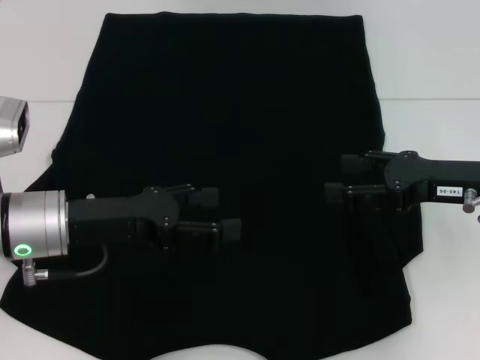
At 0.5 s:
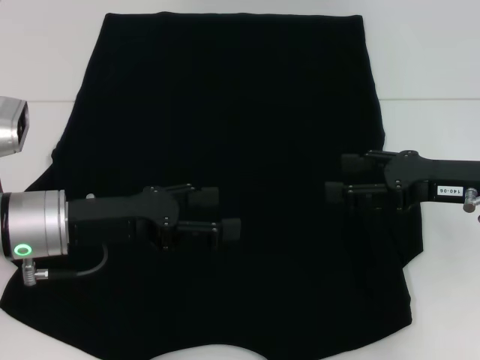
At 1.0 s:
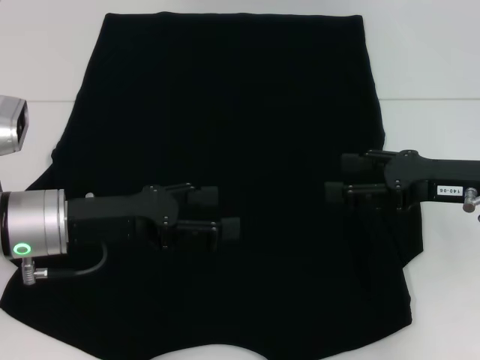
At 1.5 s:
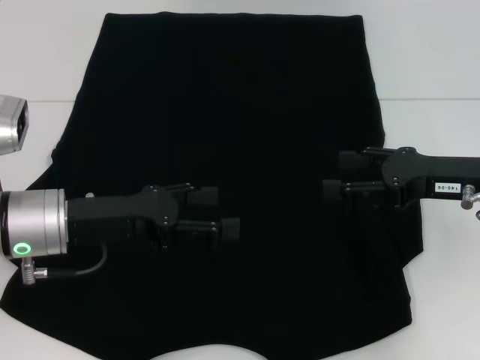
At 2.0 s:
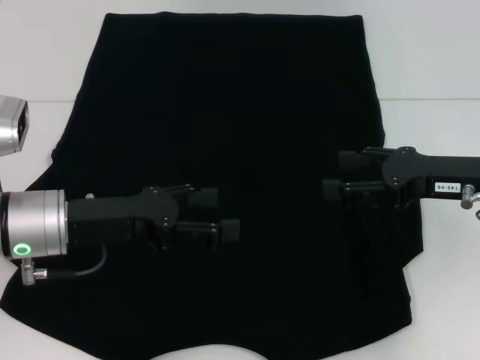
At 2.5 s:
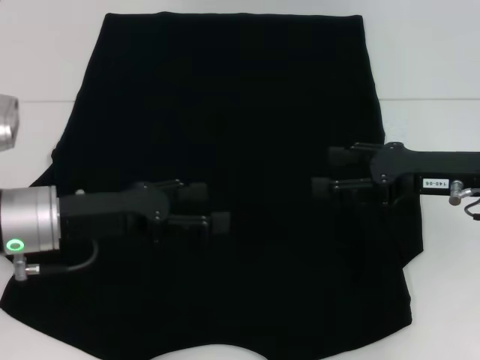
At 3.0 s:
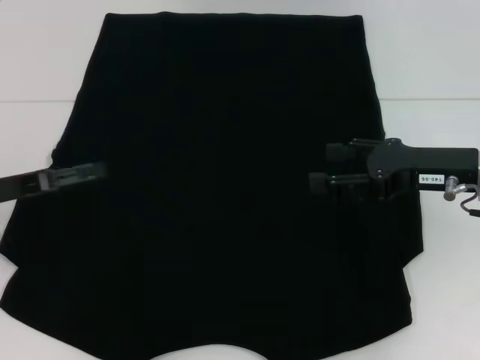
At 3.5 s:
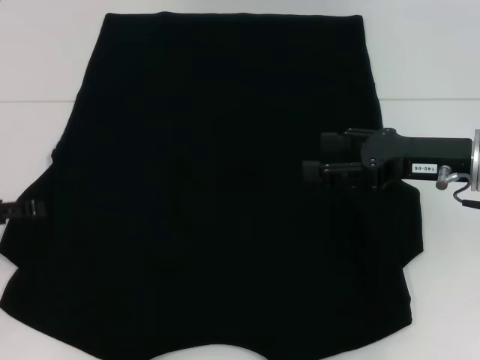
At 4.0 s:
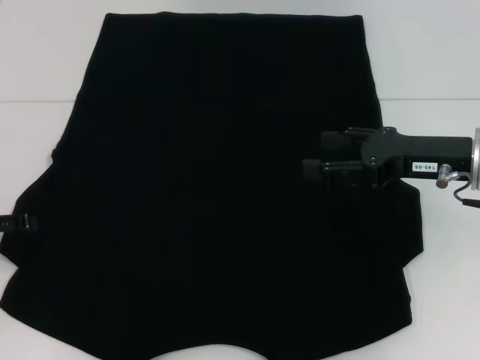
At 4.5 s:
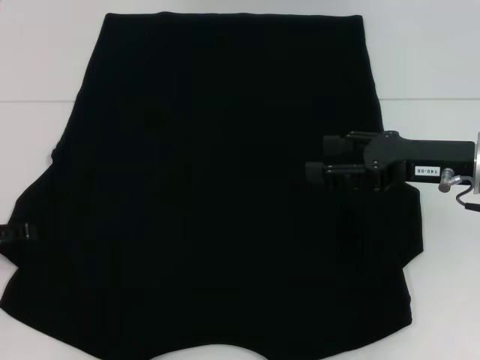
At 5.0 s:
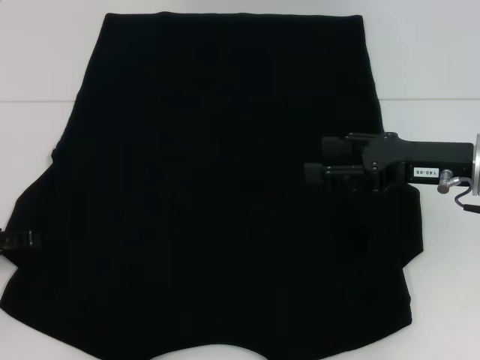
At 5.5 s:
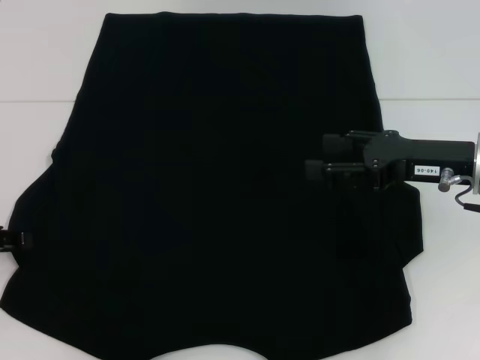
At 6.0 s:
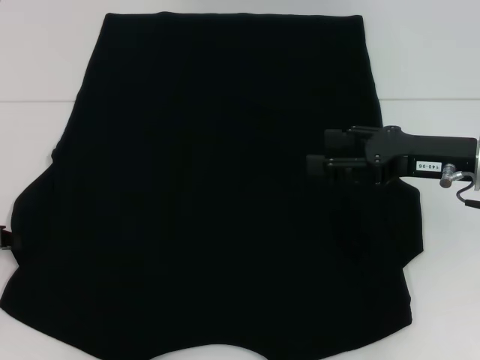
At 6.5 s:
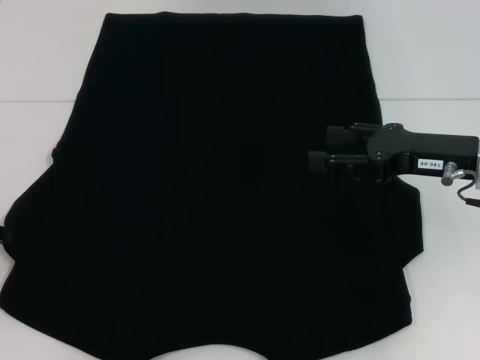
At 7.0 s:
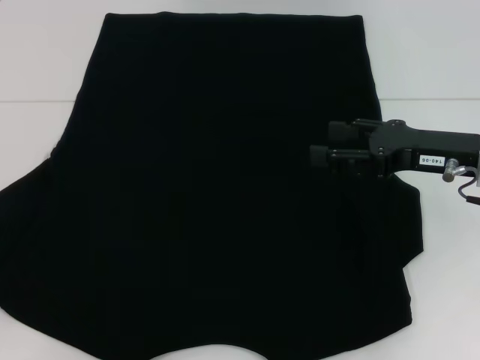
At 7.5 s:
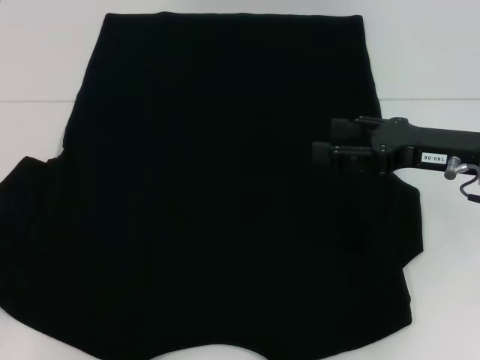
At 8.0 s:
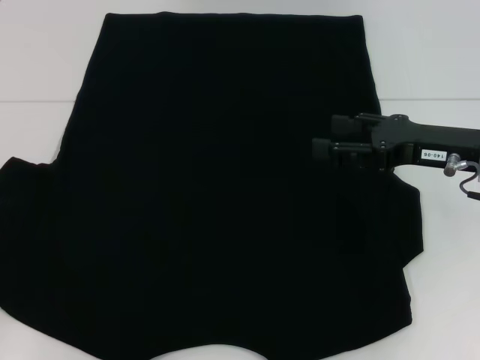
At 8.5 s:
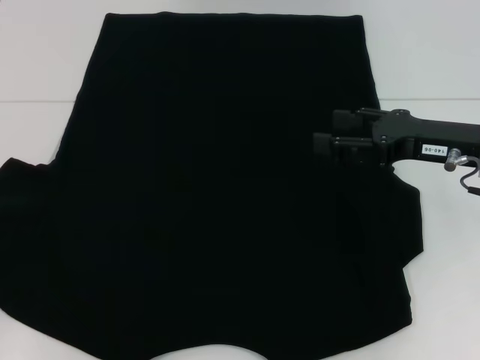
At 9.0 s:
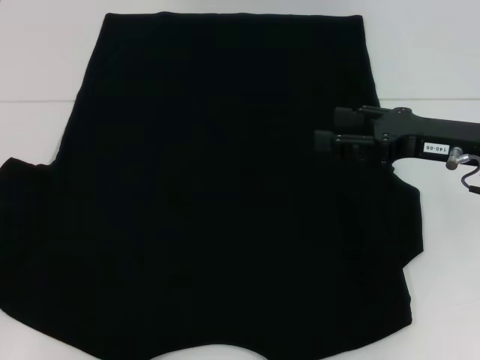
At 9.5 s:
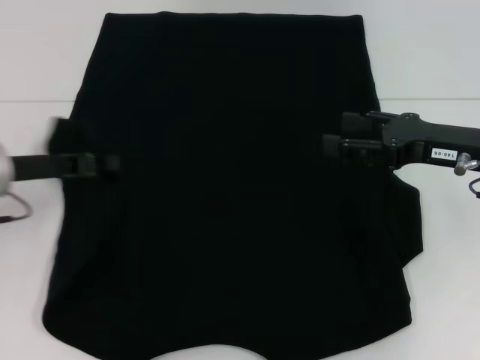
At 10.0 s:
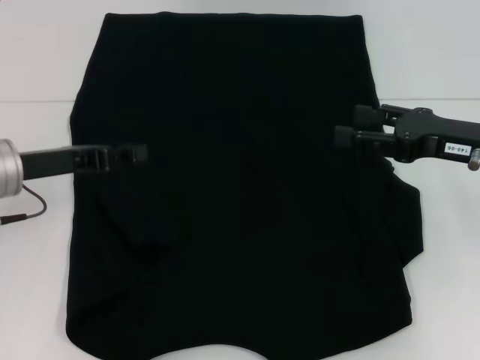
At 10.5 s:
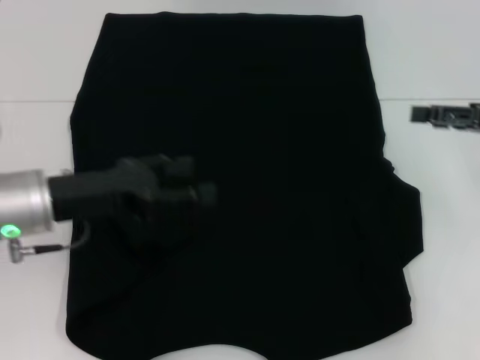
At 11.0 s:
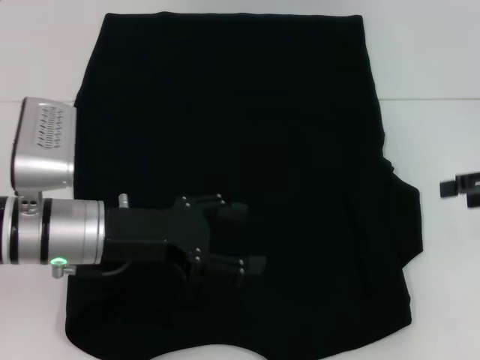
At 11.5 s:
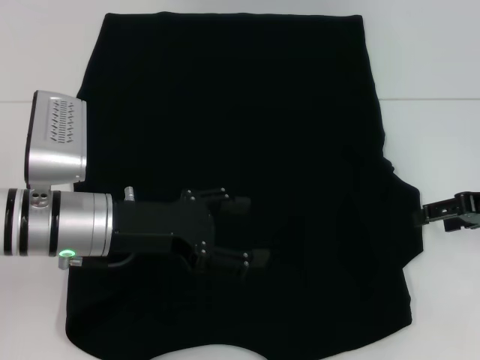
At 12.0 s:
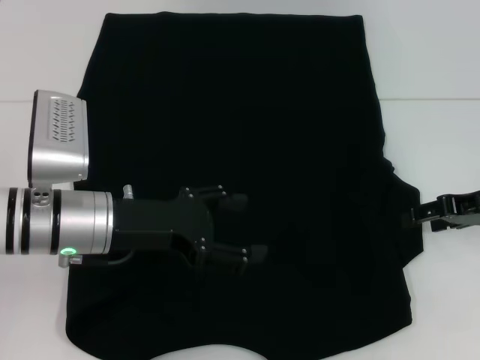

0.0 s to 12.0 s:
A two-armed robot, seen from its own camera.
Step, 0.0 to 10.0 s: Fold the clothes with your left hand.
0.0 to 2.0 s: Both grippers stay put.
2.0 to 4.0 s: The left gripper moves to the left, about 15 cm.
6.0 to 8.0 s: The left gripper shifts roughly 5 cm to the left.
8.0 to 10.0 s: The left gripper goes about 15 cm to the right and forward.
10.0 to 12.0 s: The left gripper travels to the right by roughly 10 cm, and opens up.

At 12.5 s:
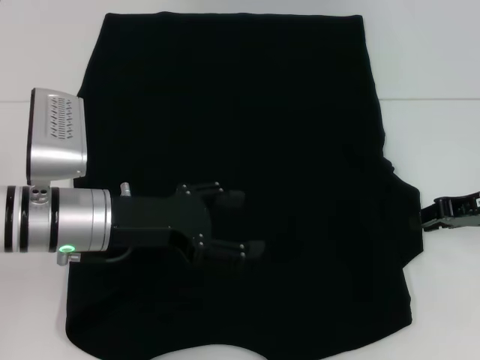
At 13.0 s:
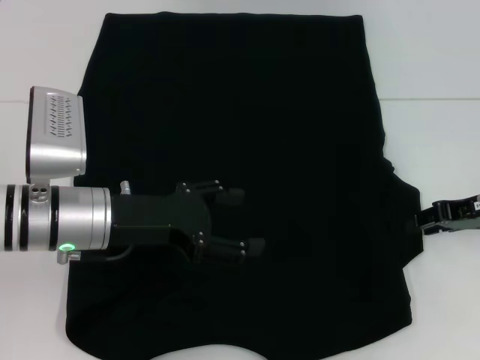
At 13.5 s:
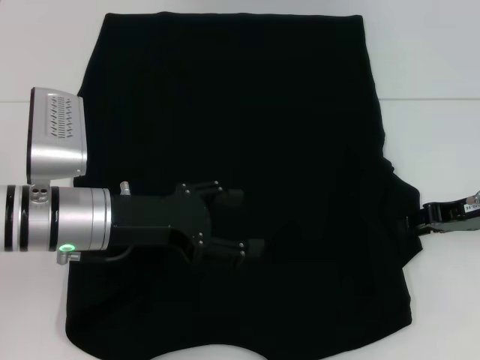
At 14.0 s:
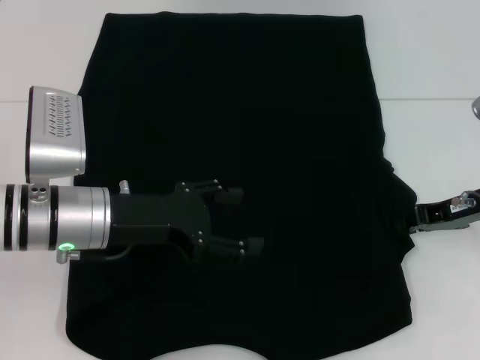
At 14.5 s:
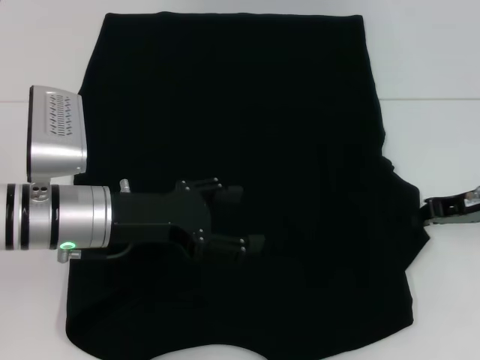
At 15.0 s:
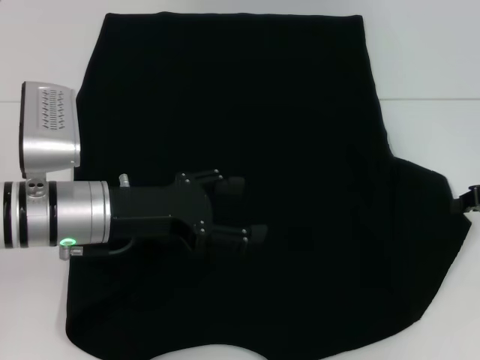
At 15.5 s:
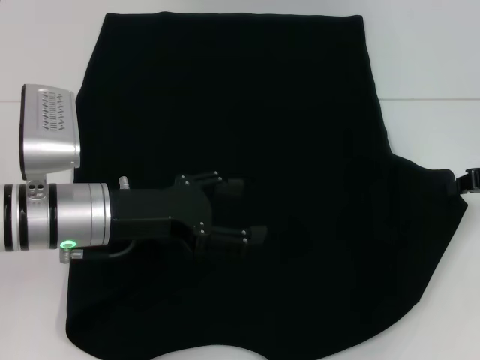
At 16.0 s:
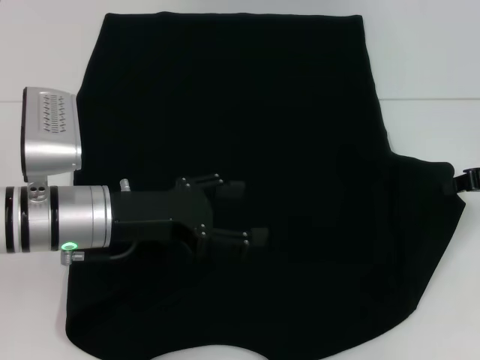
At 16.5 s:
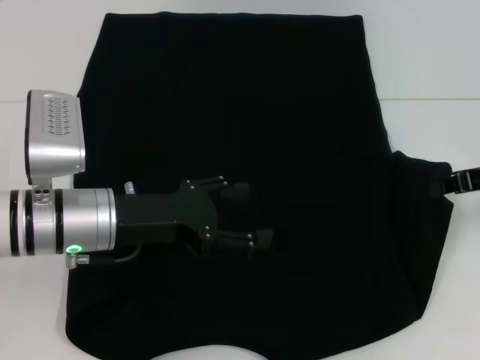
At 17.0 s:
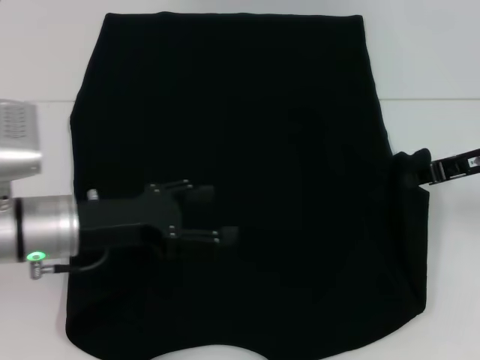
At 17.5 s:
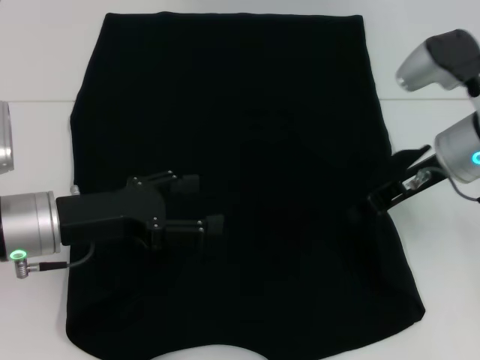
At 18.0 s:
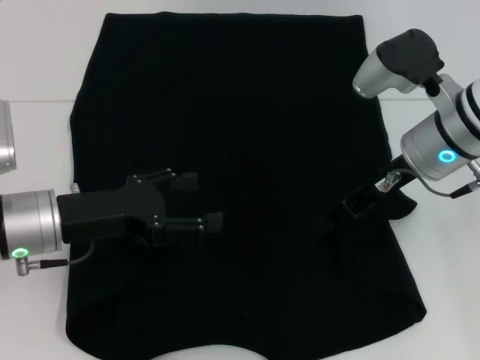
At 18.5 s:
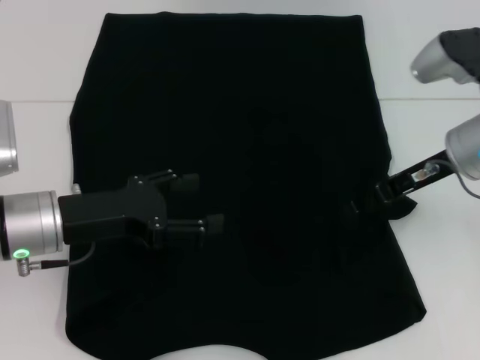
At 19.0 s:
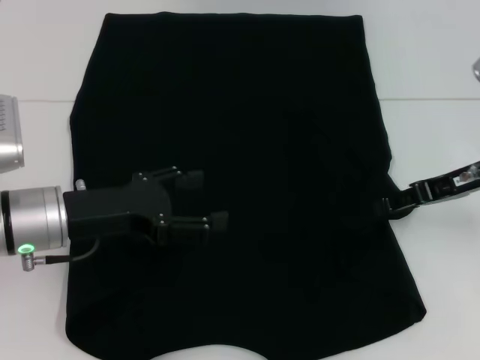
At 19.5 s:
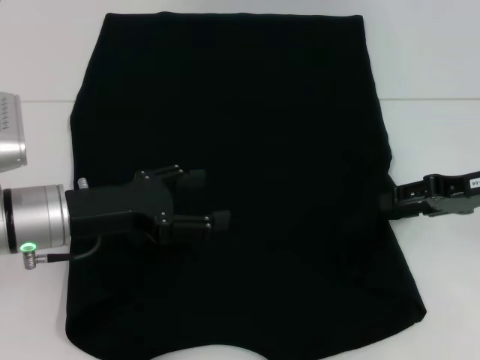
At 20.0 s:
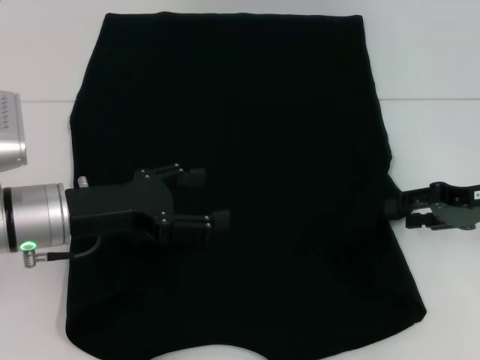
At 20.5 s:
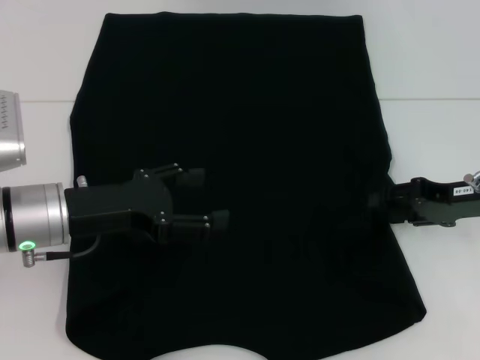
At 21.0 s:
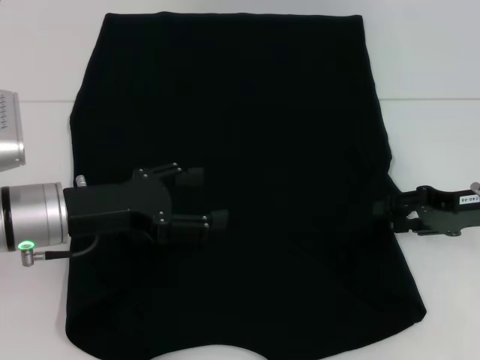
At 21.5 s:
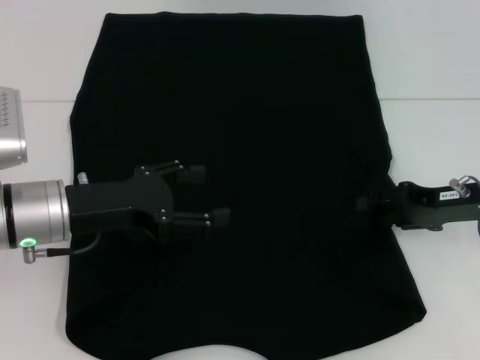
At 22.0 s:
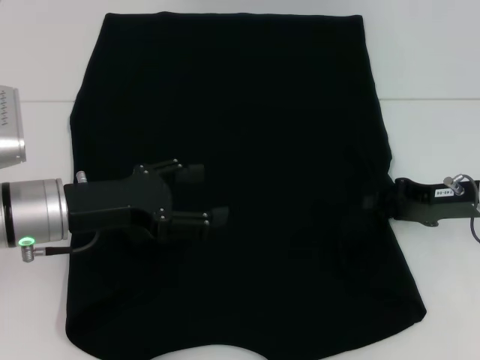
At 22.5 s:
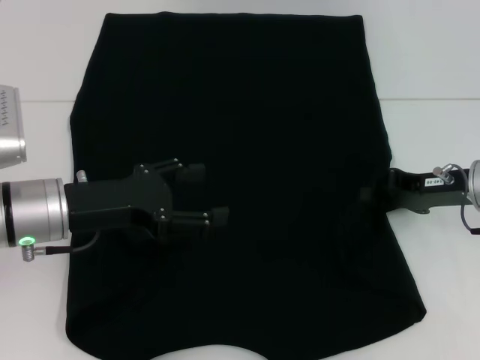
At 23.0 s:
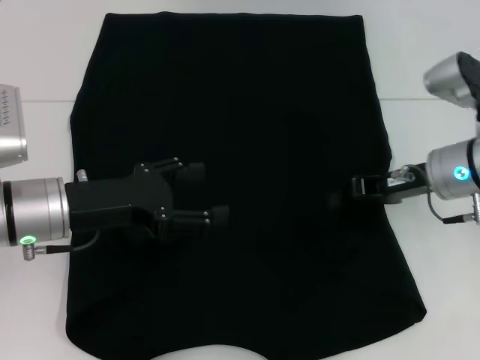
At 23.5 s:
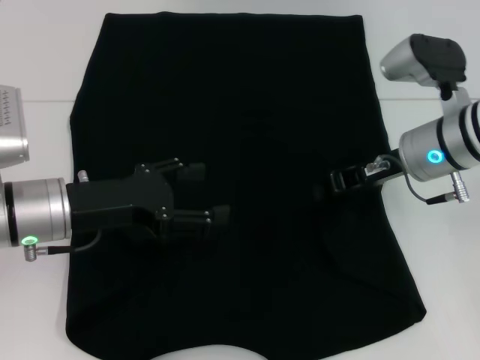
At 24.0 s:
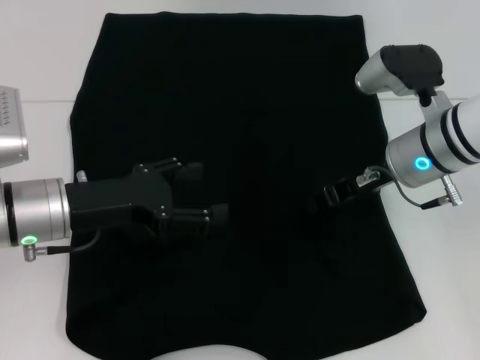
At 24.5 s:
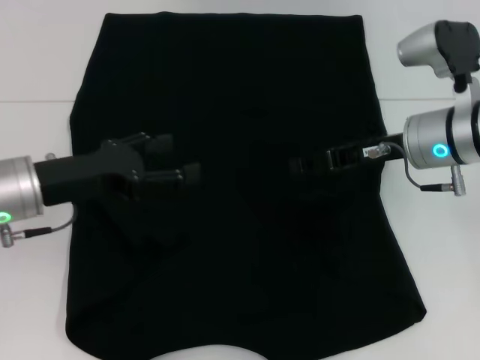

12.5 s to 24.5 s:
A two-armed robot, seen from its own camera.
Step, 12.5 to 24.0 s: Fold the clothes with your right hand.
12.5 to 14.5 s: The right gripper closes.
14.5 to 16.5 s: There are only small adjustments of the grippers.
16.5 to 18.5 s: The right gripper moves to the left, approximately 10 cm, and opens its fingers.
18.5 to 20.5 s: The right gripper travels to the right and downward by some 10 cm.
20.5 to 22.5 s: The right gripper closes.
22.5 to 24.5 s: The right gripper is displaced to the left by roughly 5 cm.

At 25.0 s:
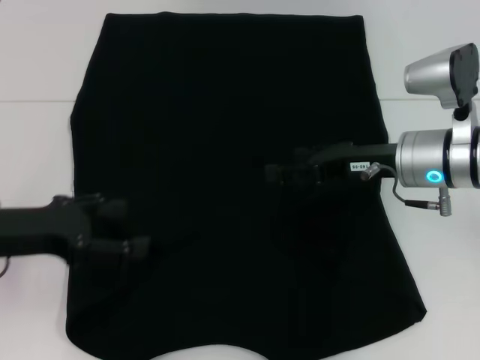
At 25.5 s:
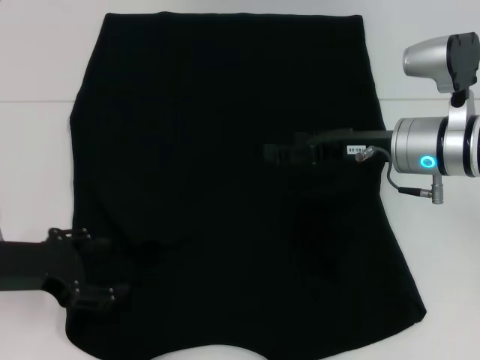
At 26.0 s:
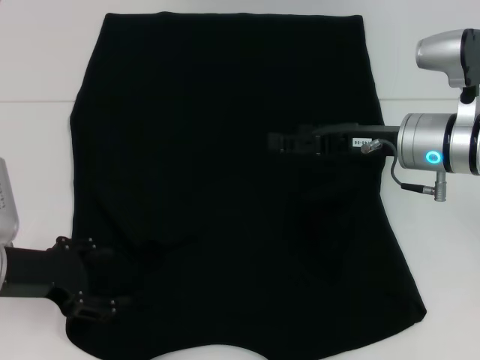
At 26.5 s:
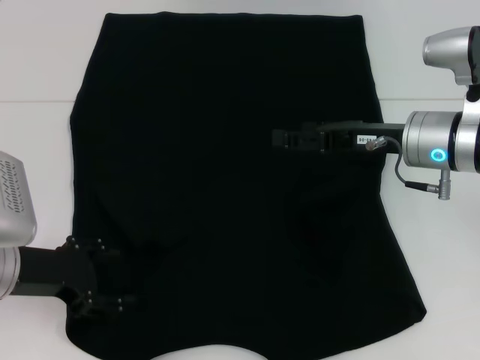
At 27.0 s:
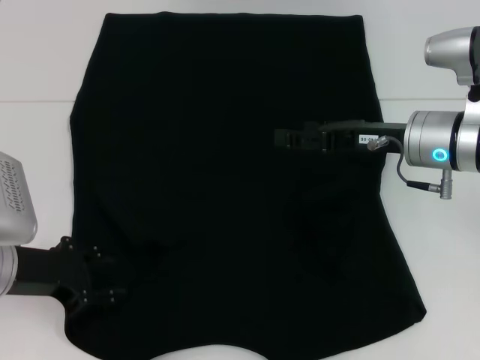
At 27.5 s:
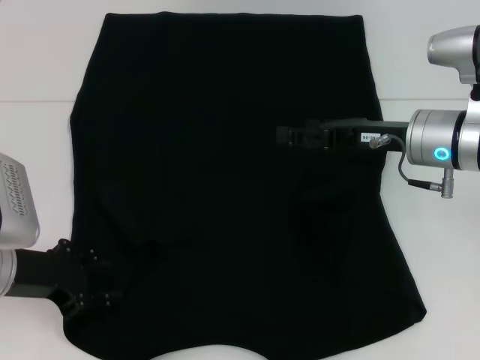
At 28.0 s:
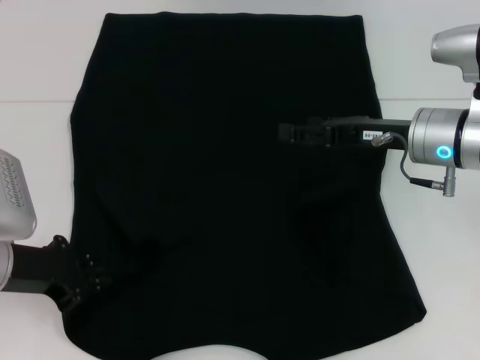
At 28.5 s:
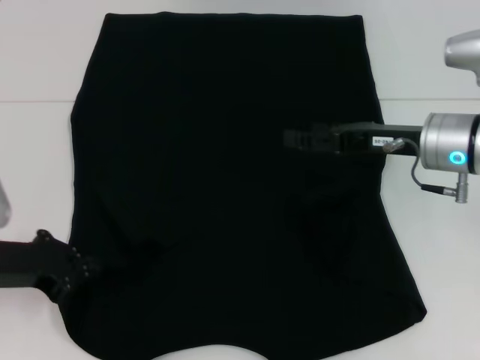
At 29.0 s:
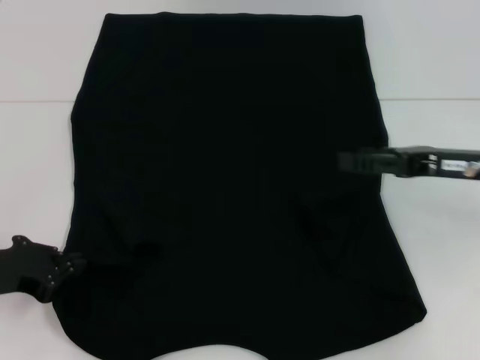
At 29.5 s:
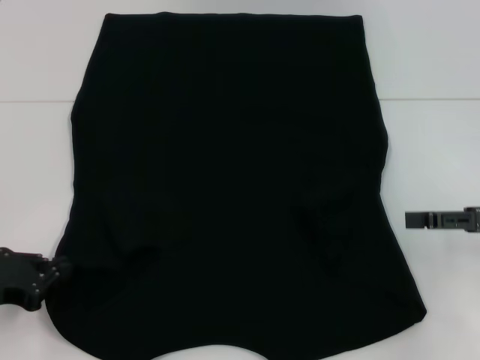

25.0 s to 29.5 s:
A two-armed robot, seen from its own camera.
Step, 25.0 to 28.5 s: Grab the bottom left corner with your left hand.
27.0 to 29.5 s: The right gripper shifts roughly 15 cm to the right and backward. Meanwhile the left gripper goes approximately 5 cm to the left, and closes up.
